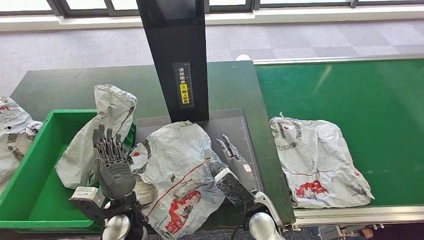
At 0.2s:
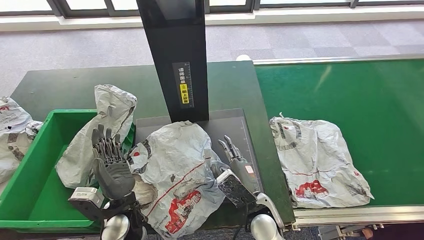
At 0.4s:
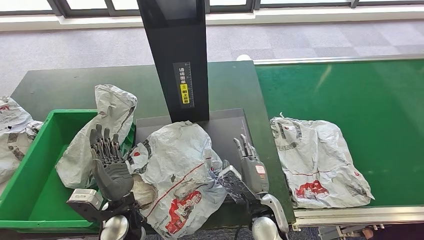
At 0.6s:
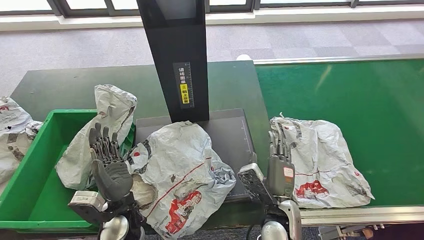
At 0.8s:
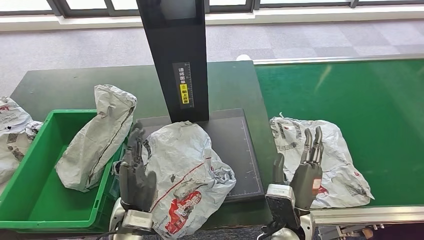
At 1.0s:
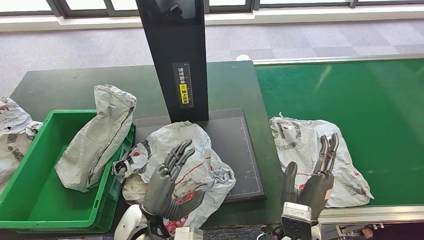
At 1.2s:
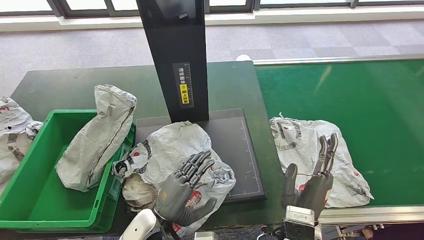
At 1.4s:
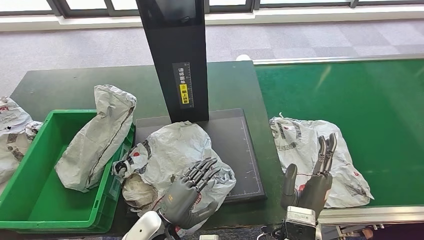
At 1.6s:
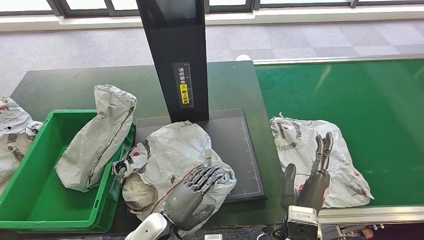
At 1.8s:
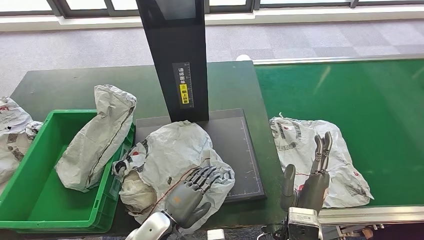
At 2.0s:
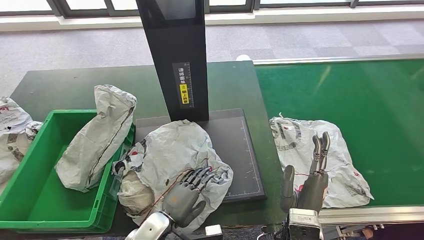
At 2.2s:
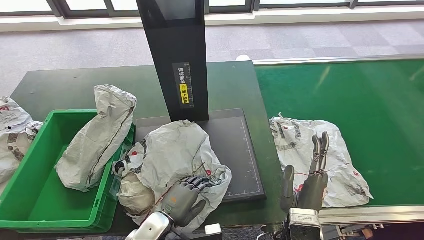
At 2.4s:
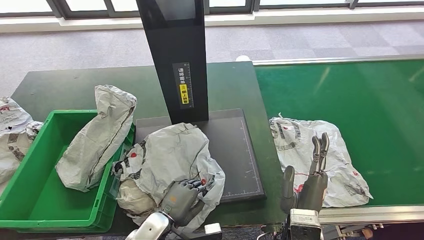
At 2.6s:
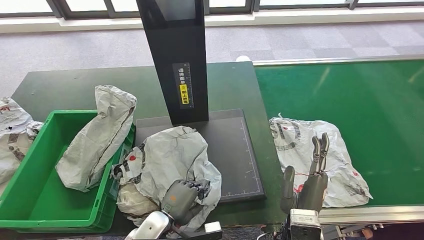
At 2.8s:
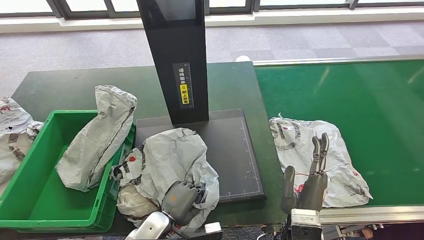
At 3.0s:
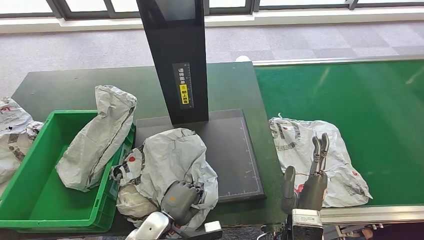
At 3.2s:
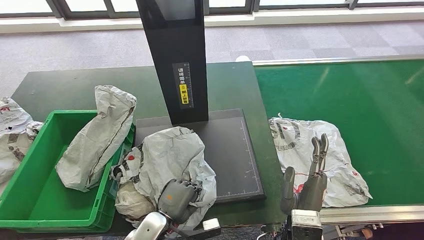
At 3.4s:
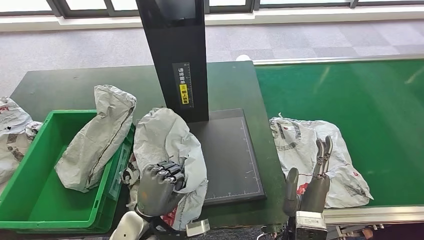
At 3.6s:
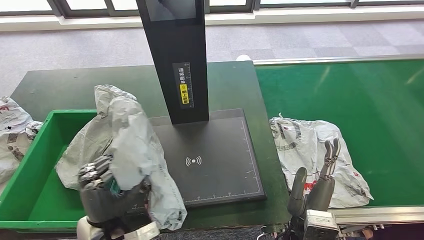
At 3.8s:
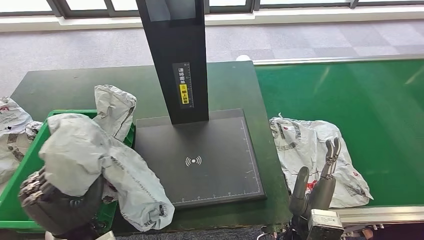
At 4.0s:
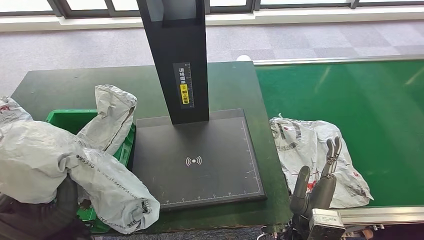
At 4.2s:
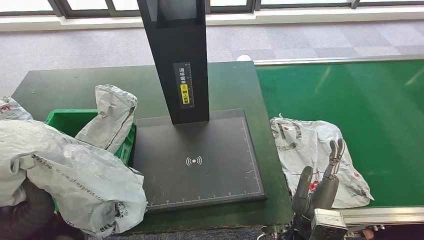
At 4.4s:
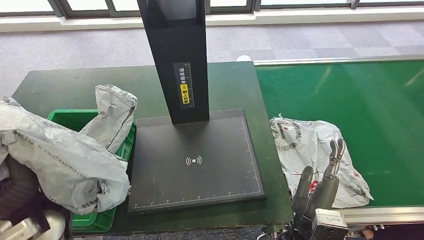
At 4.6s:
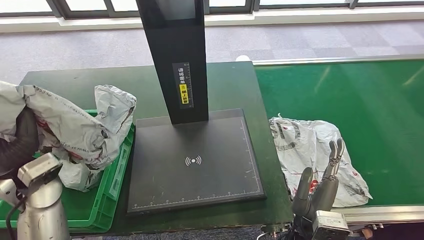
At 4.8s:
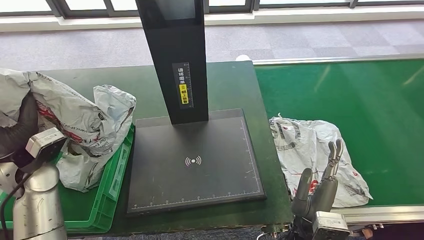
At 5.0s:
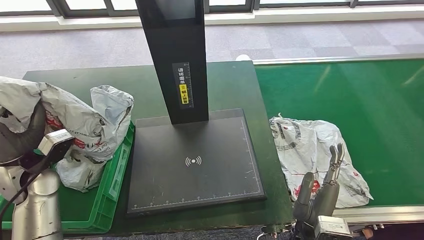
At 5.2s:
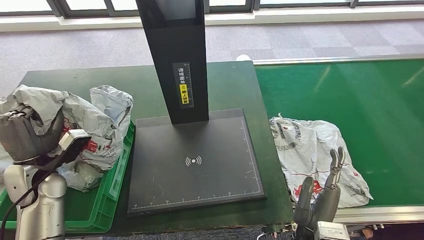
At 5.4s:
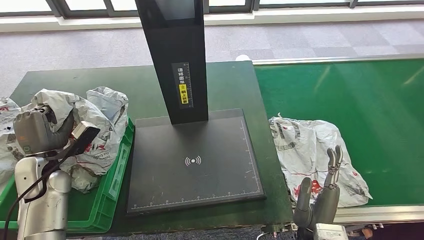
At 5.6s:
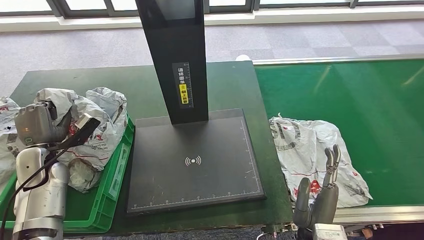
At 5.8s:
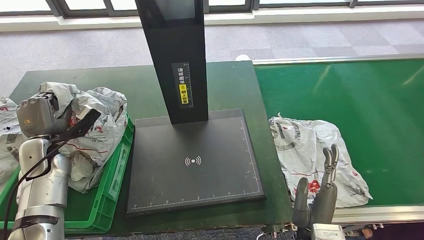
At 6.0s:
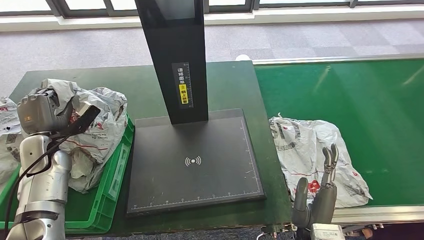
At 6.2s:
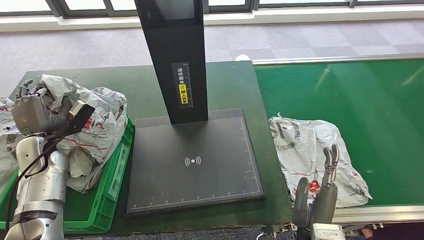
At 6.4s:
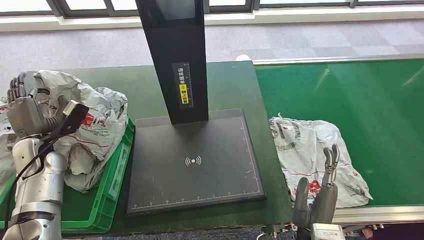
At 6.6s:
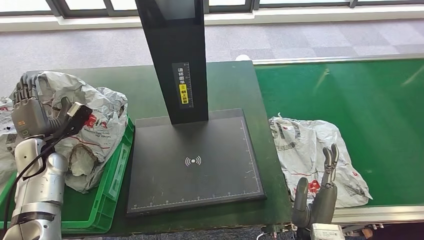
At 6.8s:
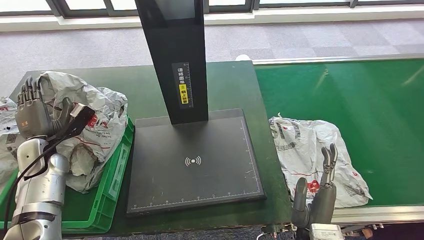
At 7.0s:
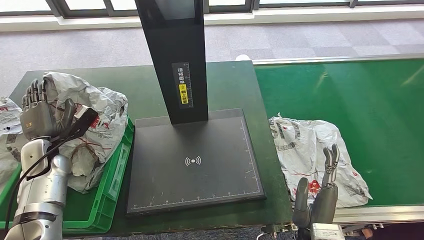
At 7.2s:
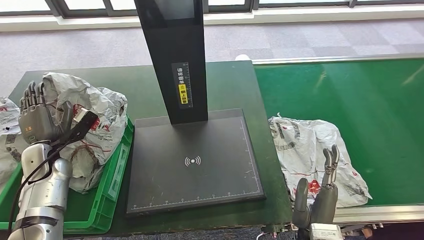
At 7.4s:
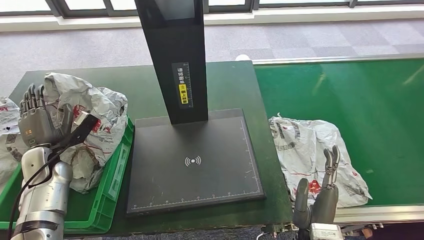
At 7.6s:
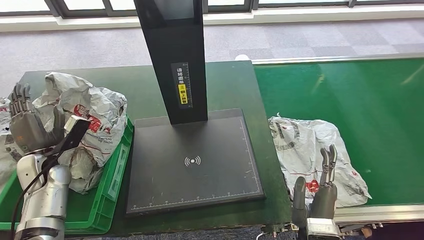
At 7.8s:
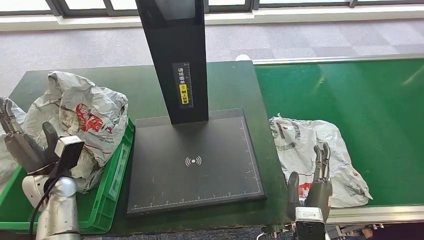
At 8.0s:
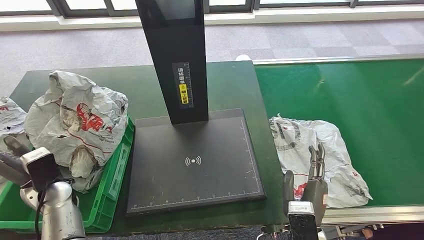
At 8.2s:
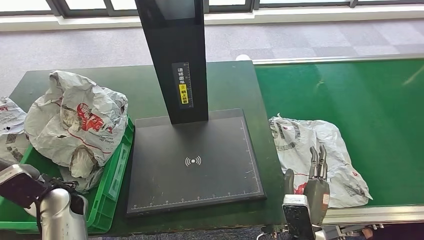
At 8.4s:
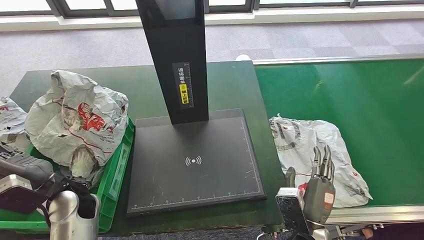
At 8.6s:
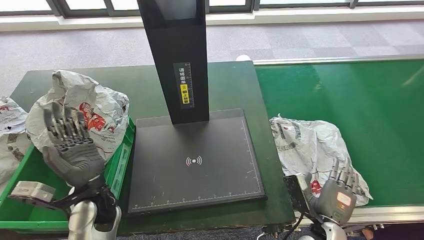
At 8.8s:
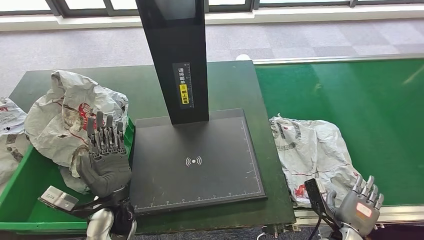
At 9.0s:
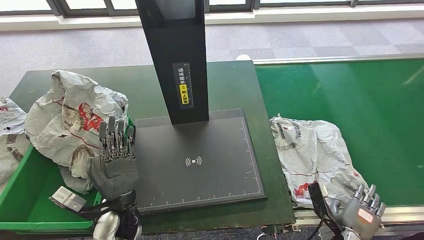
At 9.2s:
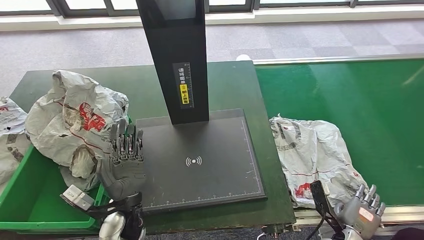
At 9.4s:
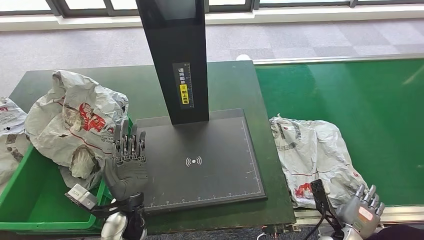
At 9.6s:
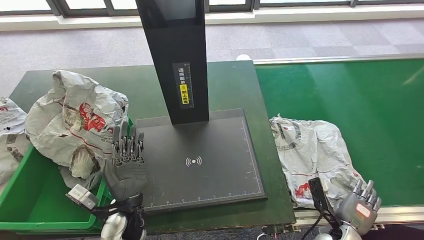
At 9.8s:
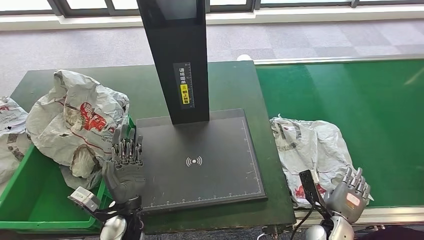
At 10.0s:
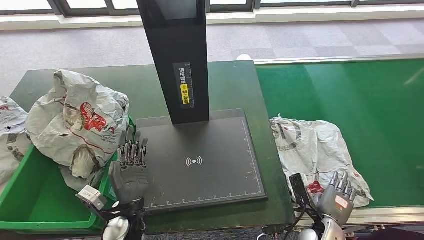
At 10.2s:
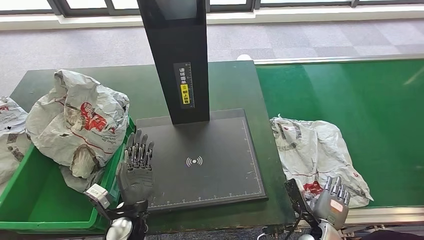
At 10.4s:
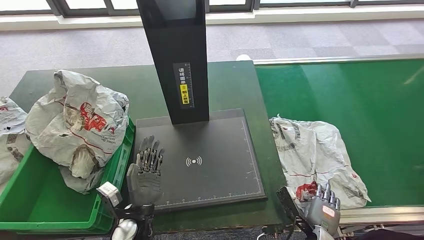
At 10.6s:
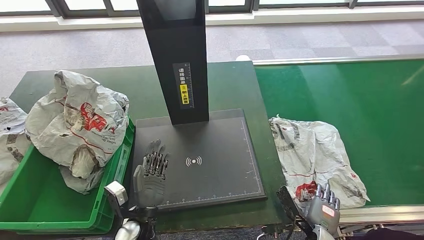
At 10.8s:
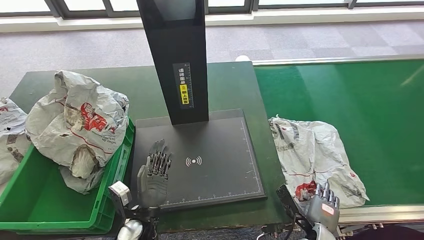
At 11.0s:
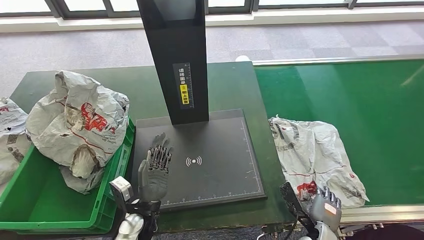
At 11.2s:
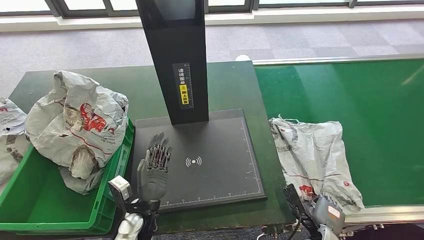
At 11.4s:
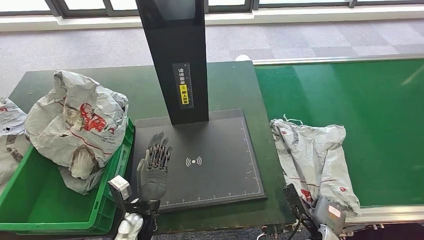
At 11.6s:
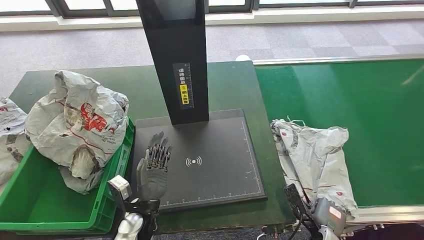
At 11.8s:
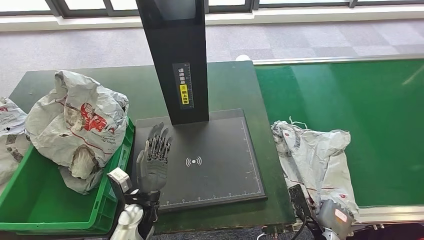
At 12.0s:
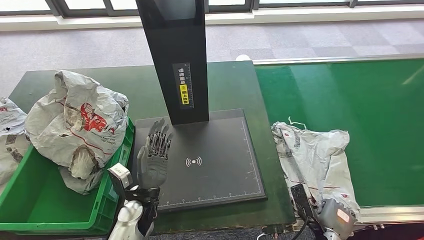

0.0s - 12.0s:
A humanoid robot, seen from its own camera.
Step, 0.8s - 3.8s: Pick up the parcel from the inbound machine.
Step, 4.0s - 7.0s: Place the parcel into the delivery box.
0.0s - 1.6s: The right hand travels to the right and backward by some 10 cm, while the left hand goes some 5 cm to the right.
6.0s - 7.6s: The hands move only a little.
9.0s - 10.4s: The left hand goes roughly 5 cm downward; the right hand moves to the left, some 5 cm.
10.4s - 12.0s: The hands make only small movements.

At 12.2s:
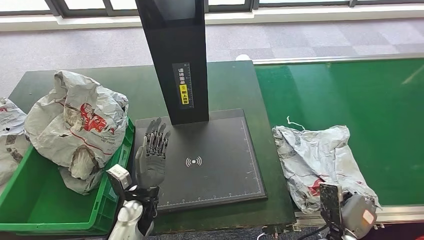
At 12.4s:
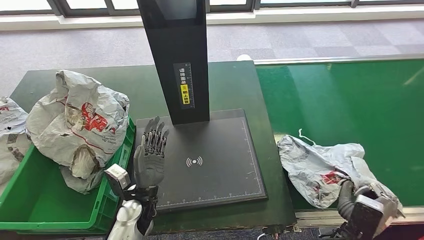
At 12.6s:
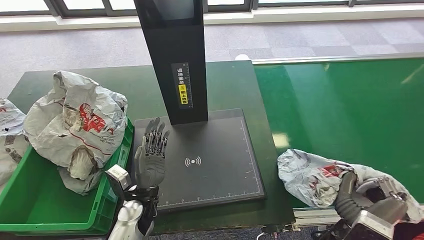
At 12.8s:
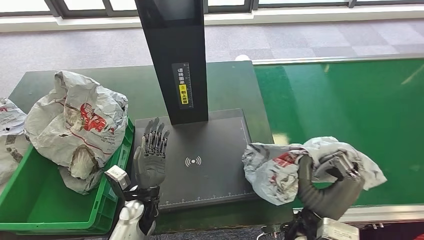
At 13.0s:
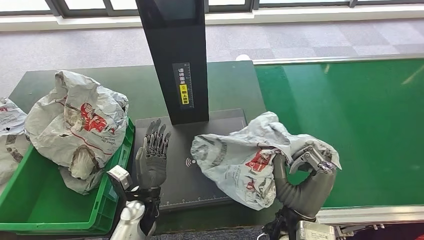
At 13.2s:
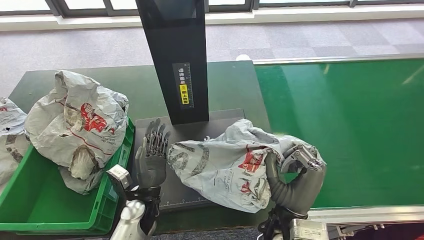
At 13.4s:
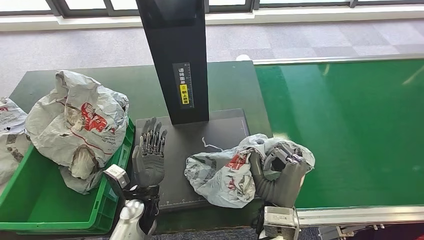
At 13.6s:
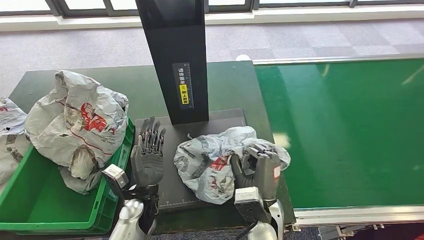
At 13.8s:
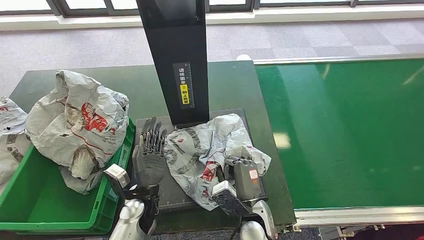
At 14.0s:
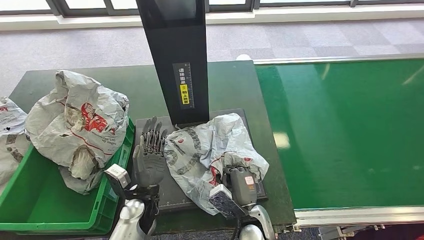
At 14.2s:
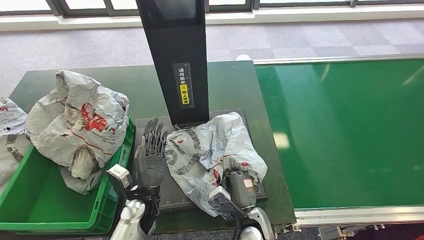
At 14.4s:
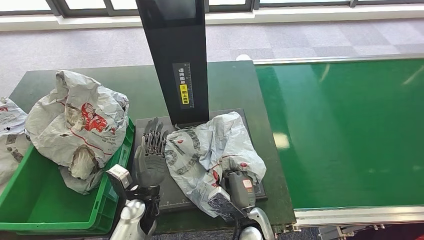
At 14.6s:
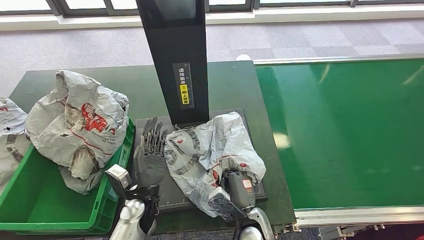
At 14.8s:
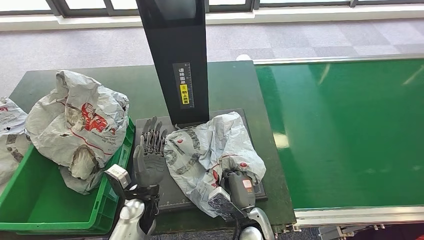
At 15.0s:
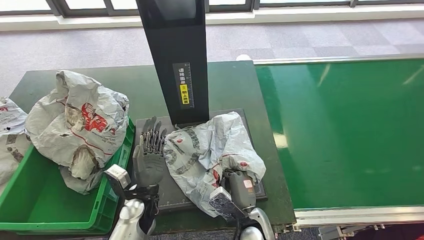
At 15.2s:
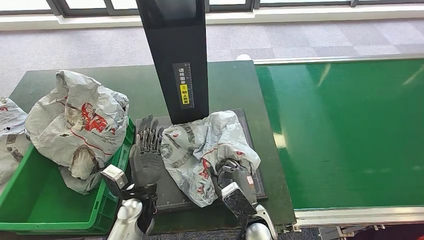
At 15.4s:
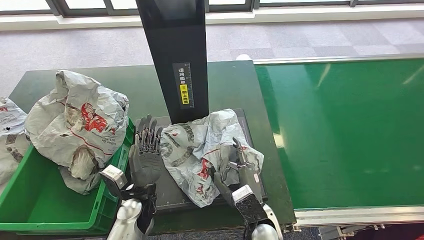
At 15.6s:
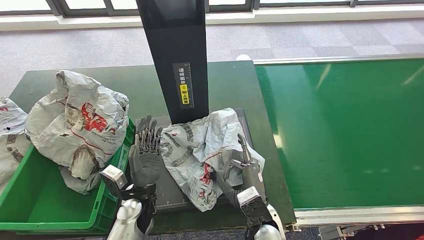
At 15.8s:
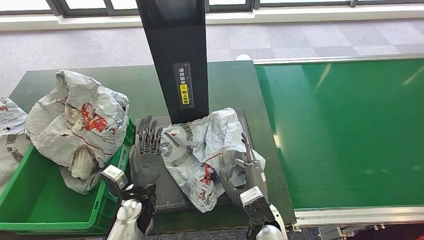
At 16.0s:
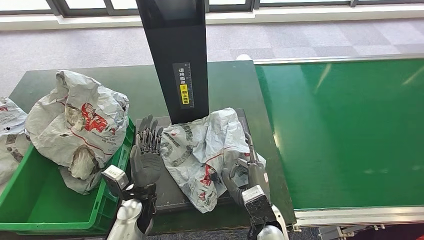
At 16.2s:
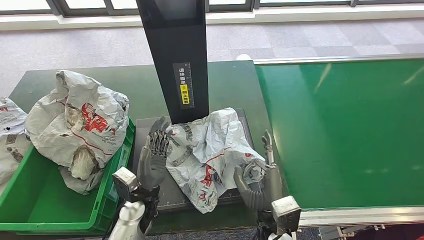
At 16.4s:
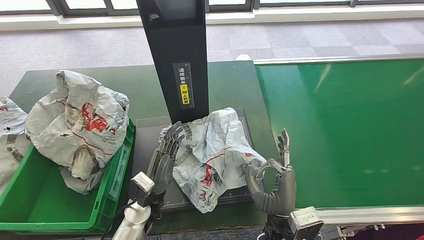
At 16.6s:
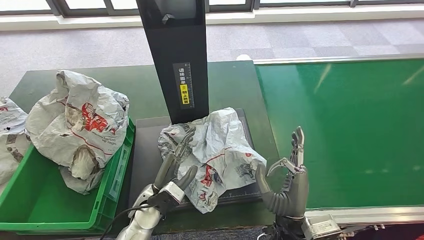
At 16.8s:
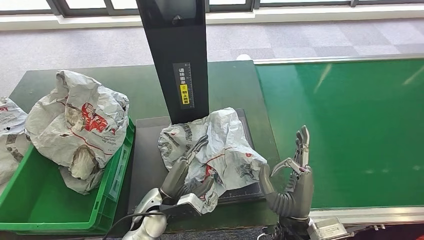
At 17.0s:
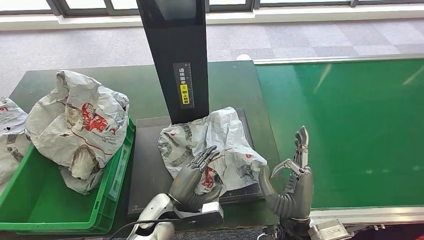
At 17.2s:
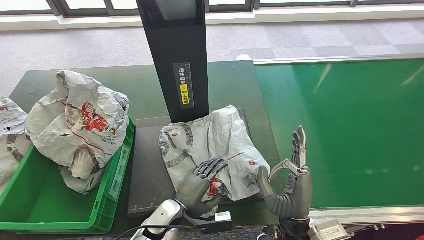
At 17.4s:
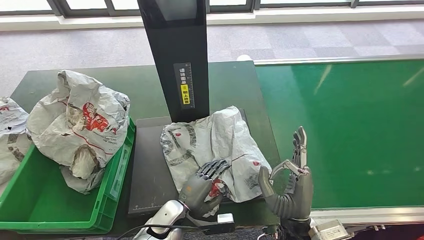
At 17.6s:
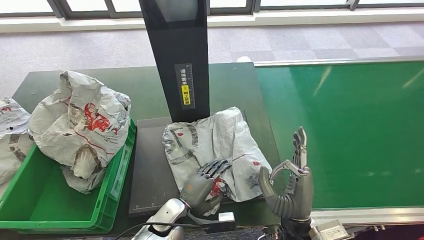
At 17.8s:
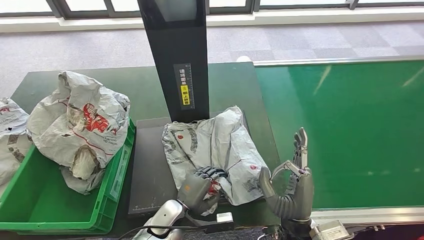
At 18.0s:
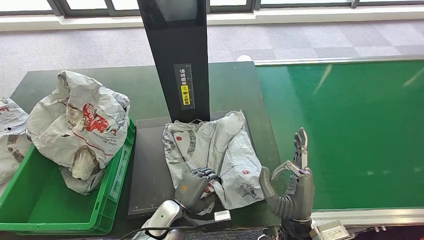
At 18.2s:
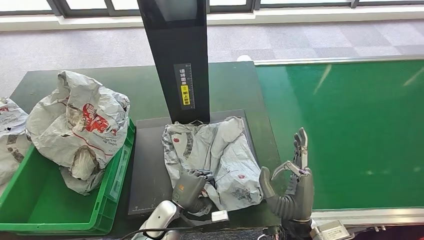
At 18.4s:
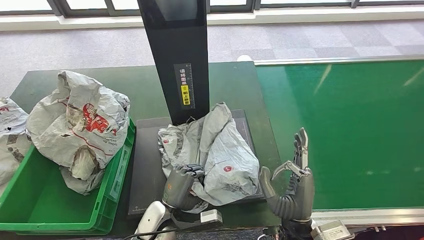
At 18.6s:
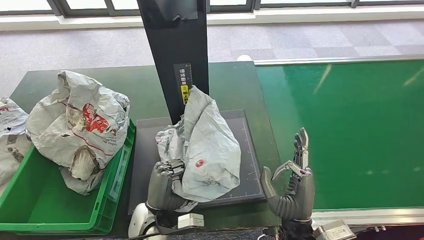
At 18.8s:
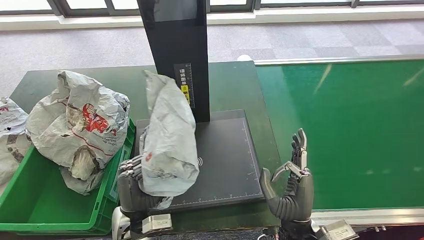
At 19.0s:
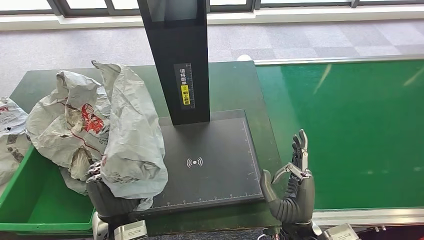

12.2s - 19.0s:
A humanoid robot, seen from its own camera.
Step, 13.0s - 16.8s: Place the parcel onto the inbound machine.
12.2s - 13.6s: The right hand is displaced to the left and upward by about 20 cm.
13.6s - 15.0s: The right hand travels downward by approximately 10 cm.
15.0s - 16.2s: The right hand is displaced upward by roughly 5 cm.
